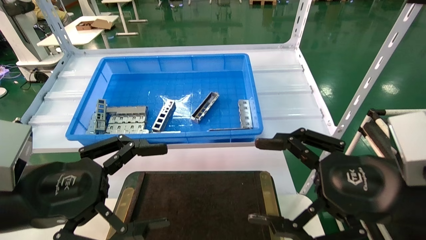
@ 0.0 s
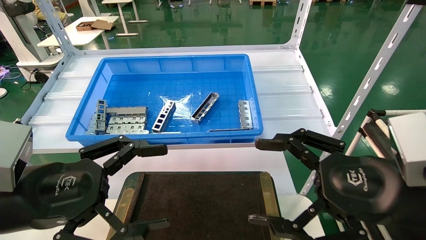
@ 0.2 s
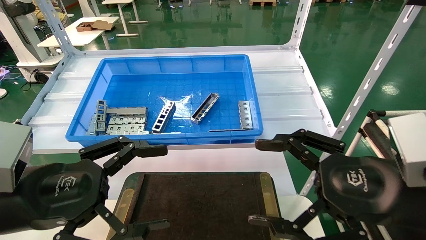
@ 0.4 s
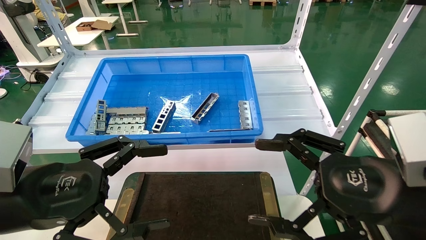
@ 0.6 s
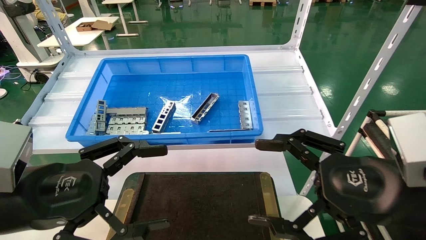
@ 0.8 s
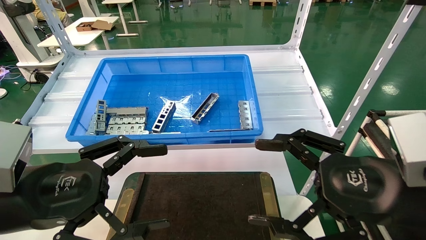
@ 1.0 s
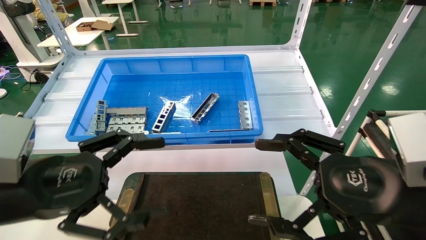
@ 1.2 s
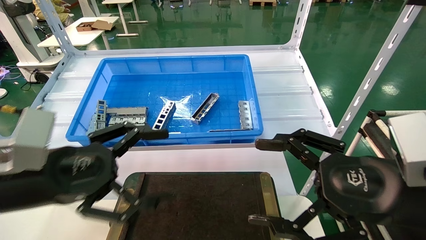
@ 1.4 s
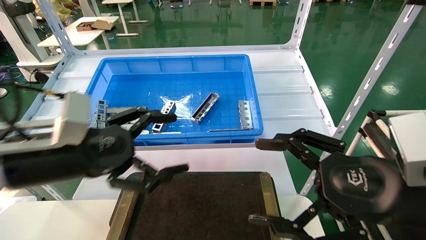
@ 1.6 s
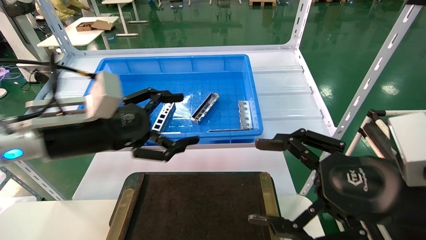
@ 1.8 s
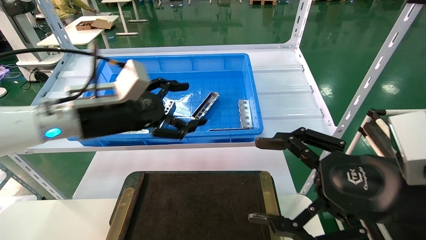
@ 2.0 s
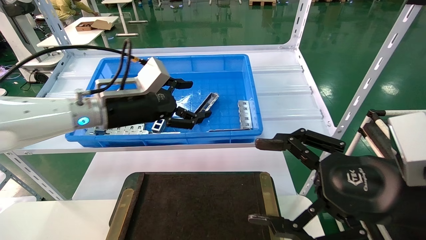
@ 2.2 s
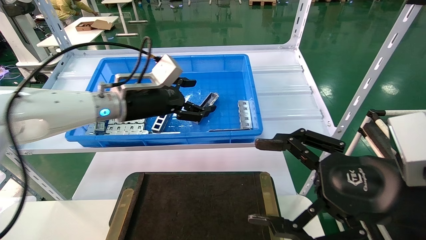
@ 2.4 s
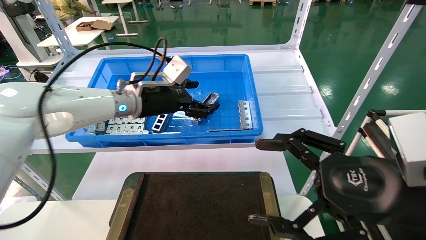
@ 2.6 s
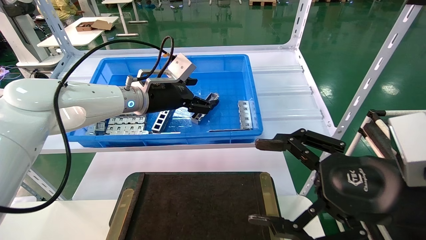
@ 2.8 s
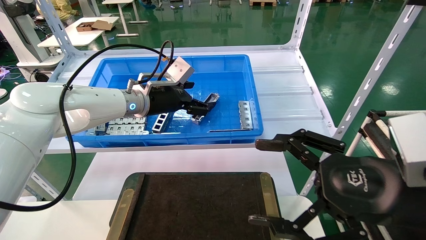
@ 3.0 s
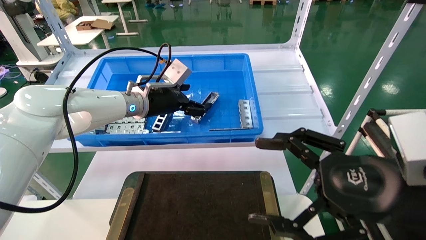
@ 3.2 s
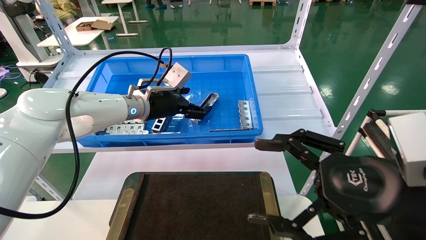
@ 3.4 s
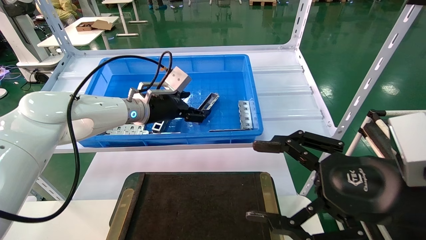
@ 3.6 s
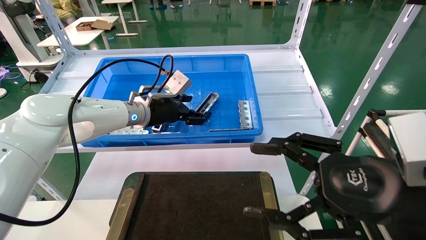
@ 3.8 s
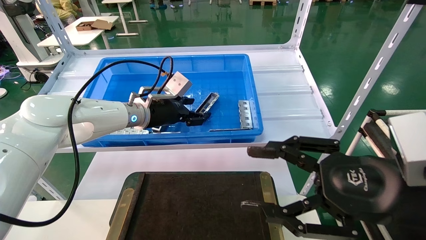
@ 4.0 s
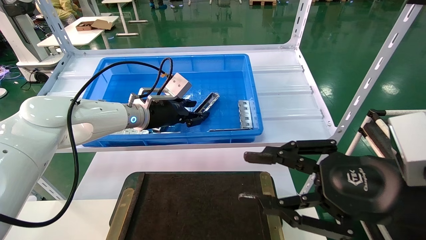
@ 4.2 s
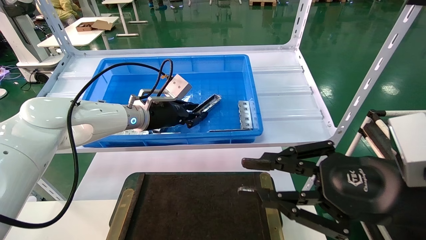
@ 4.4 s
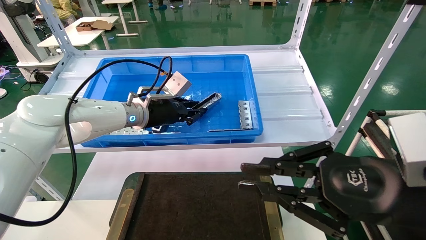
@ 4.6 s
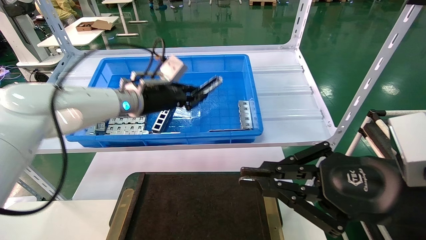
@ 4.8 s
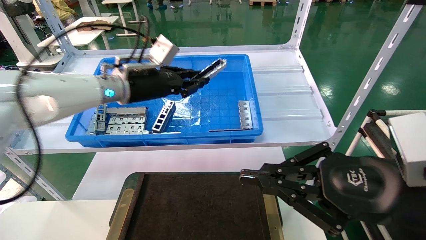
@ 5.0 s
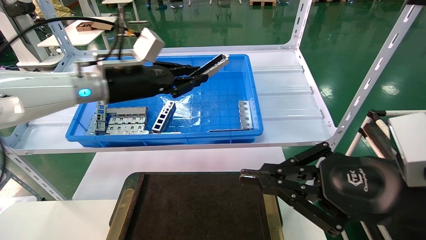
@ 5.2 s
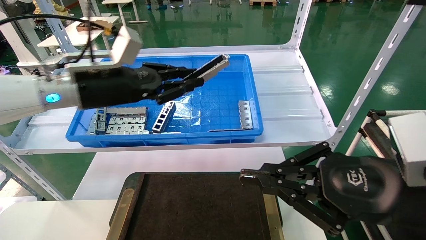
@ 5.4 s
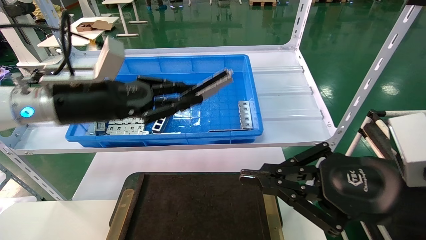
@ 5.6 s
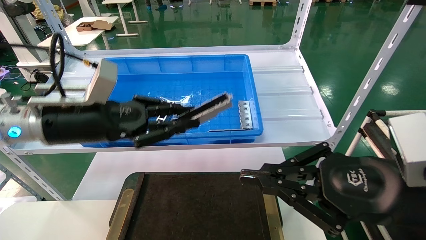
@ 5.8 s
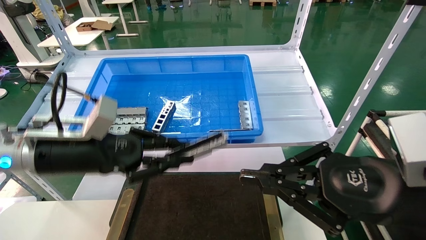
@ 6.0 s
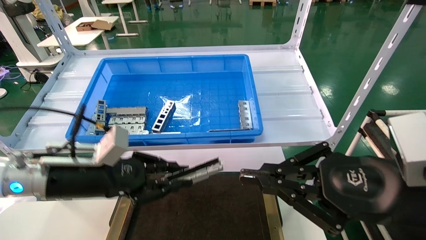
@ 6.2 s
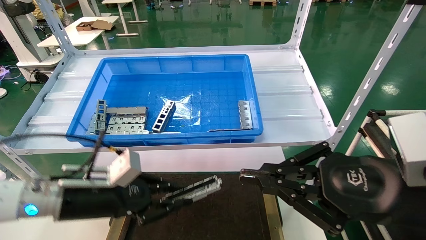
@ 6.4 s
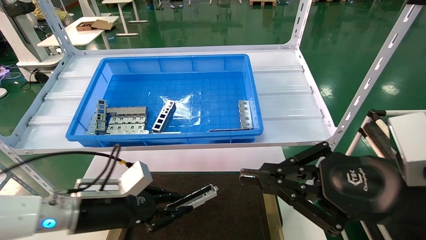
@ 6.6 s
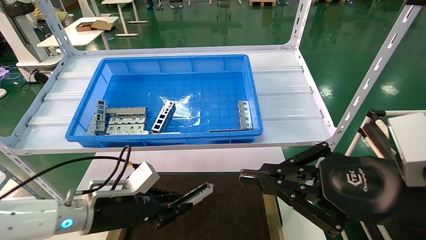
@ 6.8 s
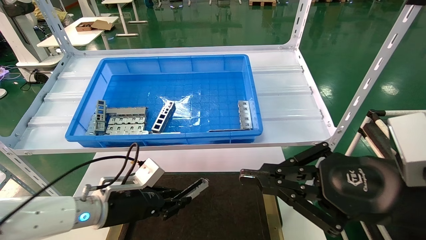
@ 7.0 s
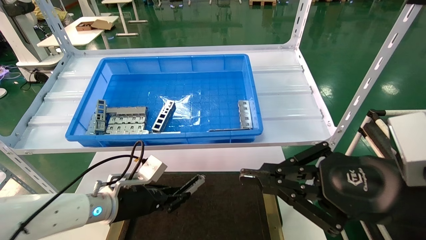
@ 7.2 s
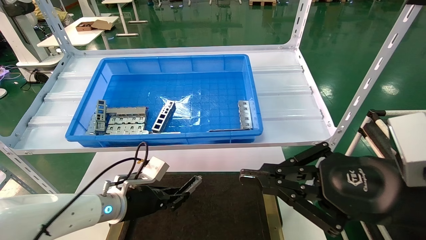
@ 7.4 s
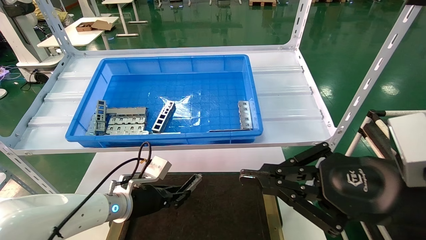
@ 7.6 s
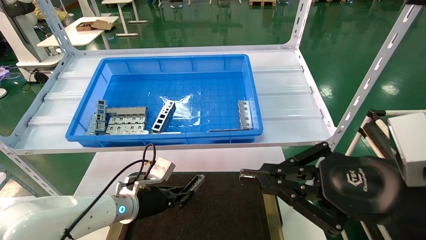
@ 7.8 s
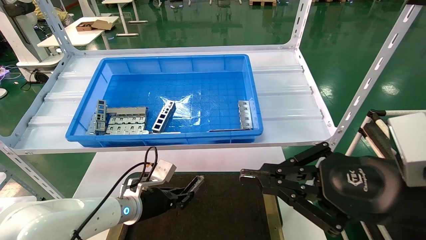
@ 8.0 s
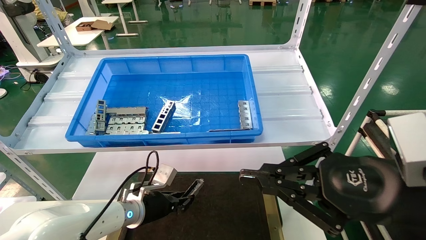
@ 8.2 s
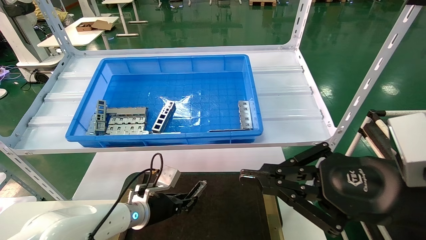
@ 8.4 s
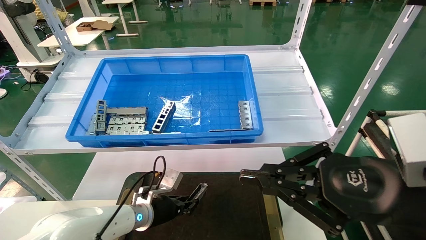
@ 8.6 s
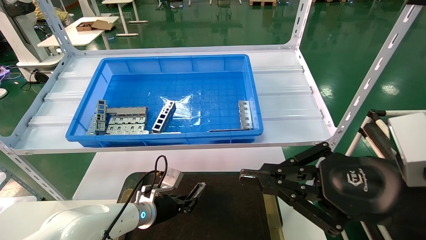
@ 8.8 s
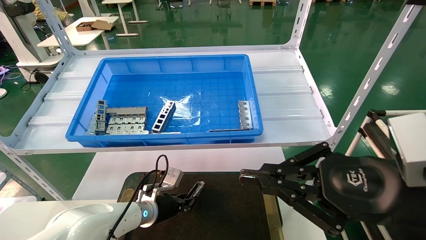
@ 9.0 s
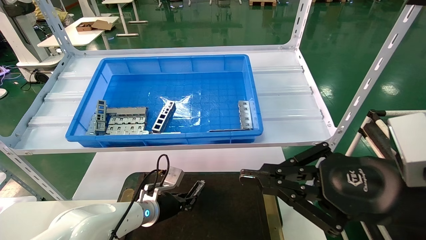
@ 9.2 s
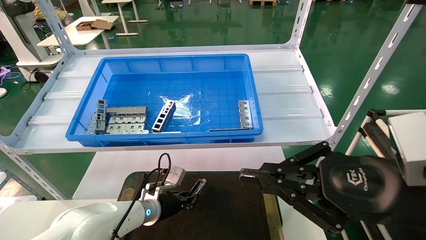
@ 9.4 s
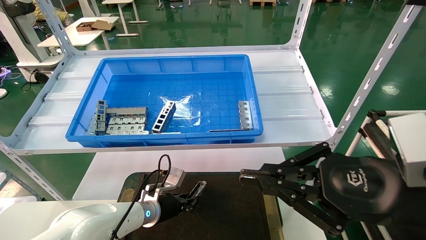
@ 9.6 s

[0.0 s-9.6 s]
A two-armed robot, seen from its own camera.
Task of the whole recording: Grasp the part with one hand and place it on the black container.
Step, 1.4 to 4.8 s: Pick up the front USB bracket from the feeding area.
0.0 to 1.6 s: The left gripper travels forward by about 5 cm.
1.6 to 3.2 s: The left gripper is displaced forward and to the right by roughly 25 cm.
3.2 to 4.8 s: The left gripper closes up. Meanwhile the right gripper closes up.
4.8 to 6.4 s: The left gripper heads backward, downward and to the left, covering approximately 20 cm.
6.4 to 8.0 s: The left gripper moves downward, forward and to the right, some 15 cm.
8.0 to 9.6 s: The left gripper moves approximately 5 cm.

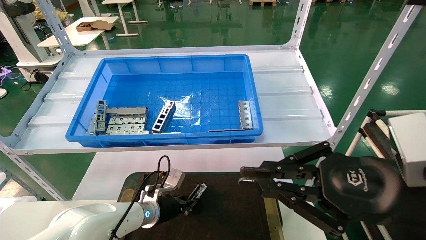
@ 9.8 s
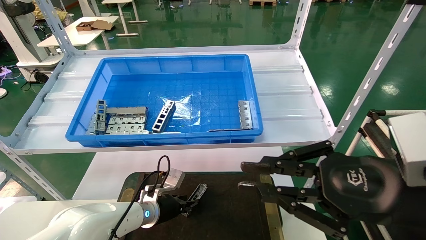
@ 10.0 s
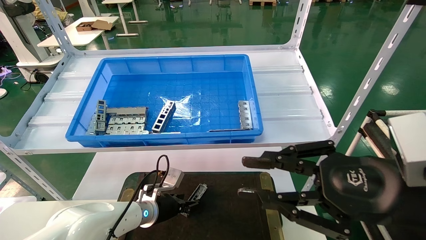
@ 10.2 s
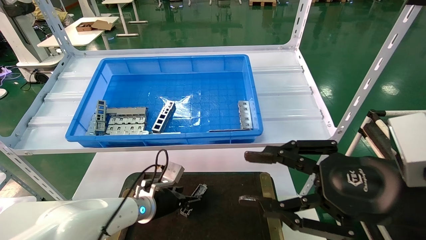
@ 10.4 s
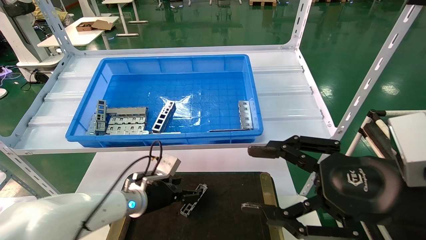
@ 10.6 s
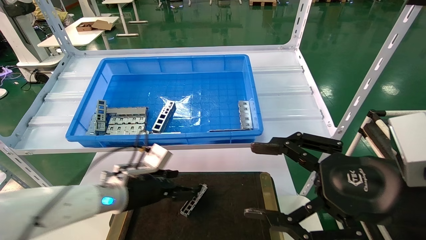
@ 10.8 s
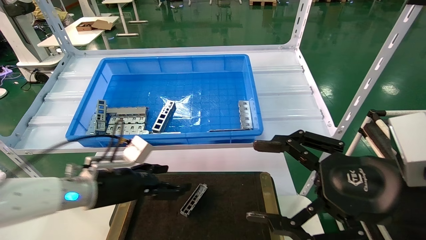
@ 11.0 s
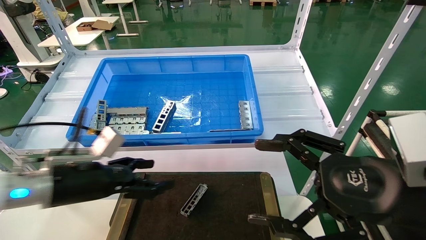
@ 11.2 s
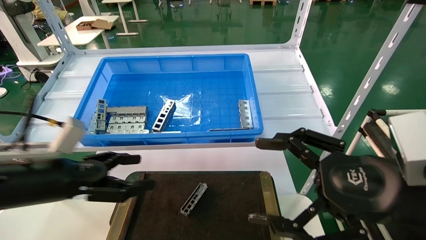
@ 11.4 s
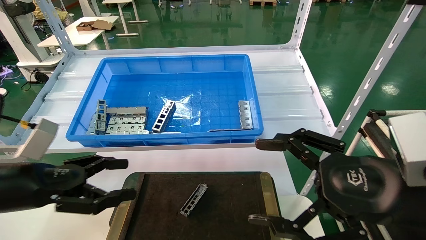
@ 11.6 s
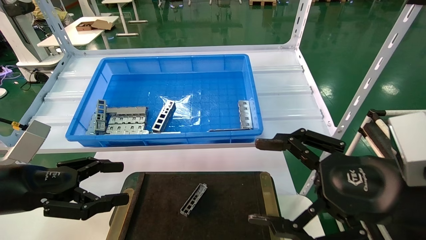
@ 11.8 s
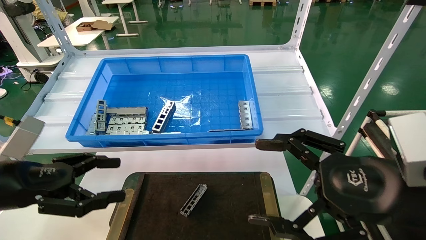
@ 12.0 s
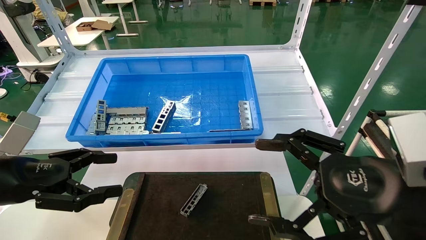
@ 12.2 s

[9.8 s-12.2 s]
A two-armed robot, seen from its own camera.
Task of the whole recording: Grasp the part with one hand and place it on the black container.
9.8 to 11.0 s: The right gripper opens up; the left gripper is displaced upward, backward and to the left by about 20 cm, and opens.
11.0 to 12.2 s: The left gripper goes roughly 15 cm to the left, backward and upward.

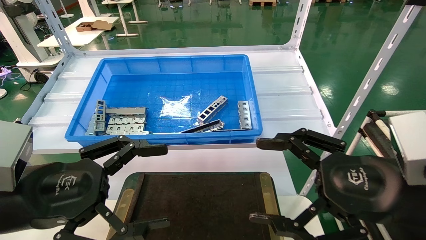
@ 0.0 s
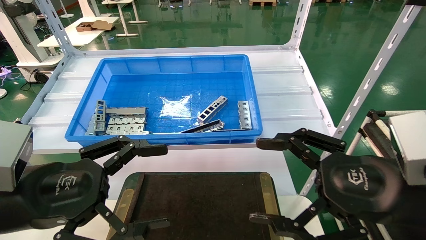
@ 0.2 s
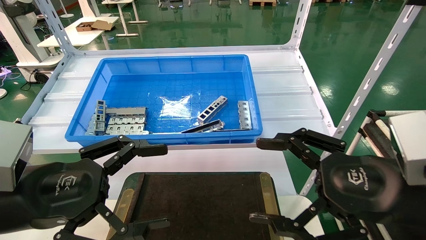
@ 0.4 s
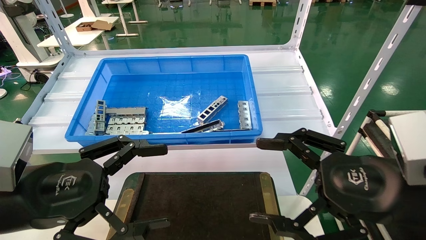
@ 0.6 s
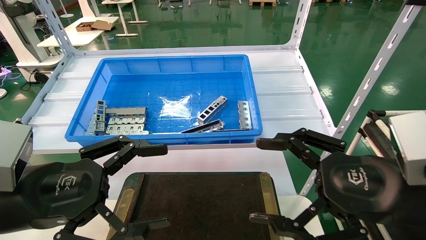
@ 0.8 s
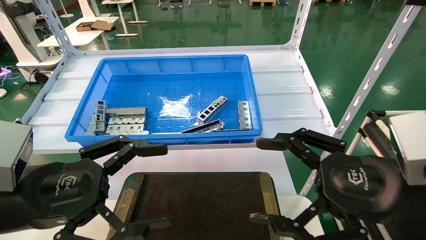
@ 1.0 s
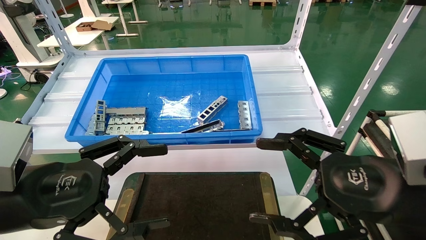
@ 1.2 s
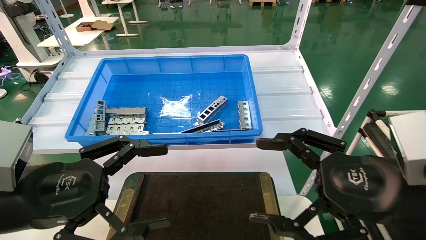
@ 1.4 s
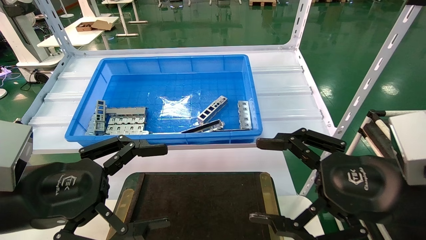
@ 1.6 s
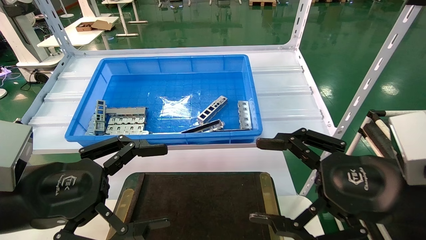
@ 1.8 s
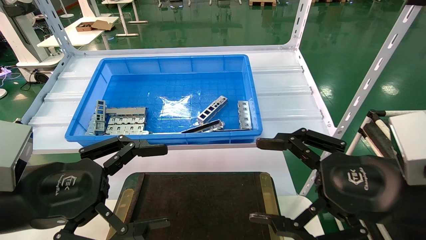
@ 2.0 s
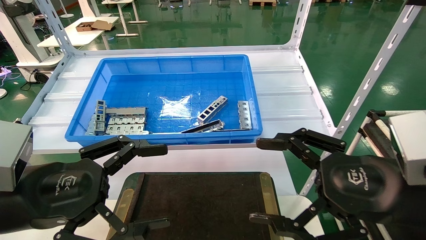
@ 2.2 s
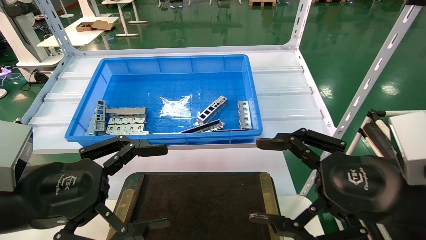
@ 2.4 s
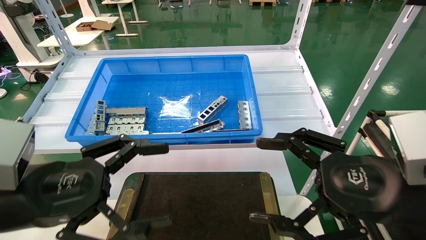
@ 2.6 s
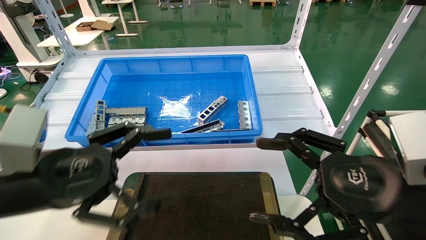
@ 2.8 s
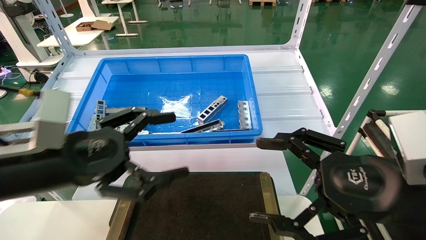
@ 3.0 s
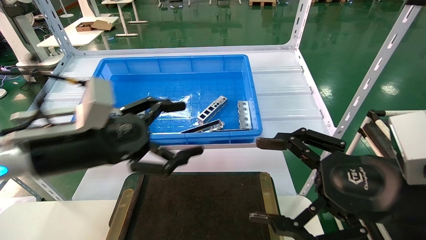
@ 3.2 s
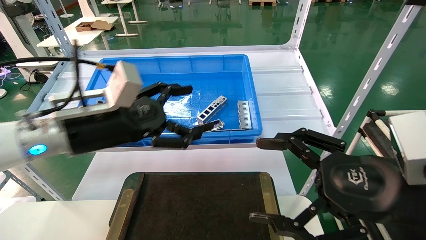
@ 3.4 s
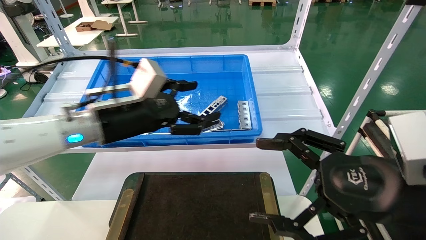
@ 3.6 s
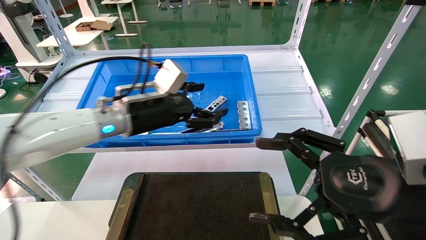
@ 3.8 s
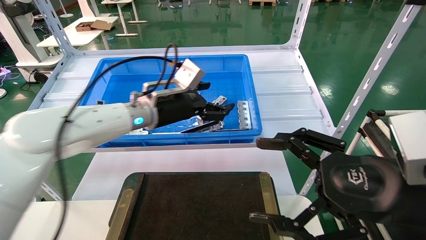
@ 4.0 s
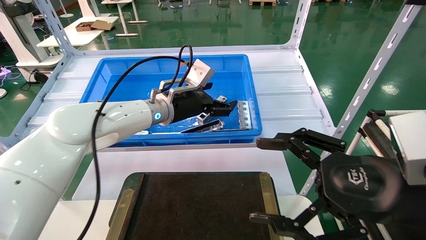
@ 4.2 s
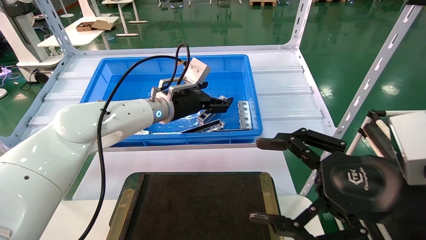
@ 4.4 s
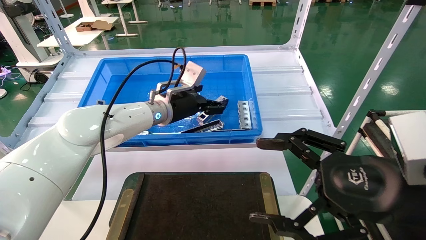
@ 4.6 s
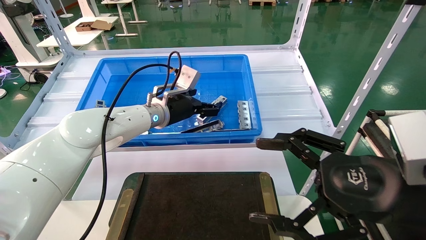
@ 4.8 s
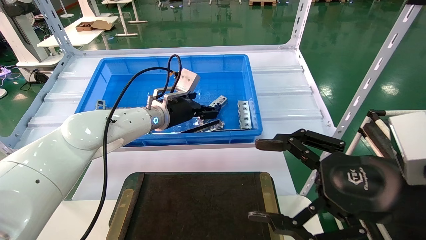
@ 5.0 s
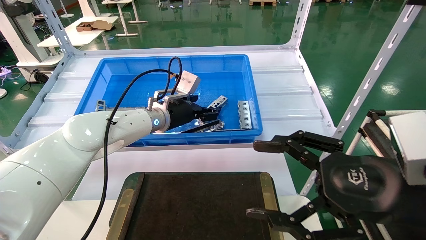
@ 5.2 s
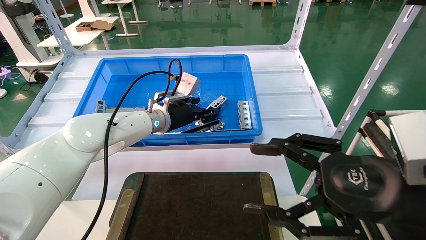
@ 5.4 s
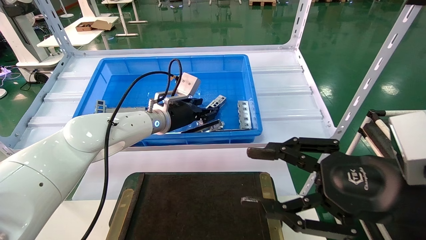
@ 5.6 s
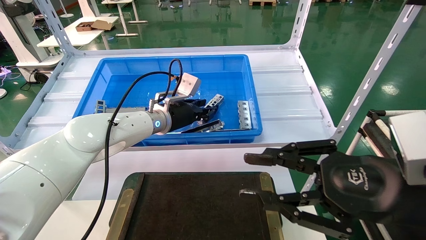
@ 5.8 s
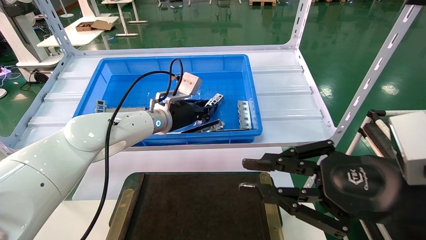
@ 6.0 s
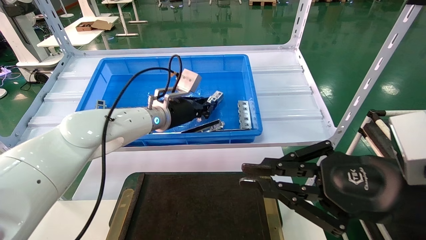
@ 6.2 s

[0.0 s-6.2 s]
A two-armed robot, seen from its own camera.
Task of the whole recording: Grasp the part with one hand and place it on the black container.
Step, 2.8 to 6.2 s: Pick up the front USB bracket from the feeding area.
0.0 to 1.6 s: The two grippers keep their place.
1.6 to 3.2 s: The left gripper goes roughly 10 cm forward.
3.2 to 4.6 s: The left gripper is displaced forward and to the right by roughly 25 cm.
4.6 to 6.2 s: The left gripper closes its fingers. The right gripper closes up.
